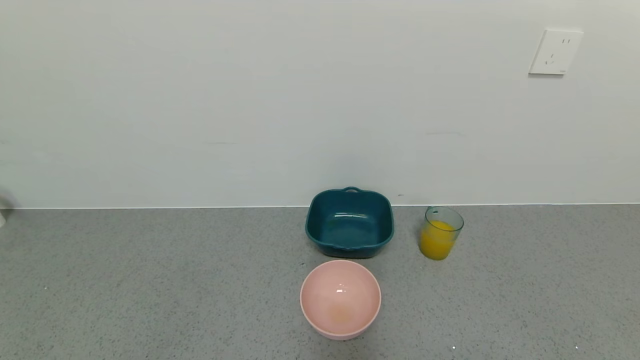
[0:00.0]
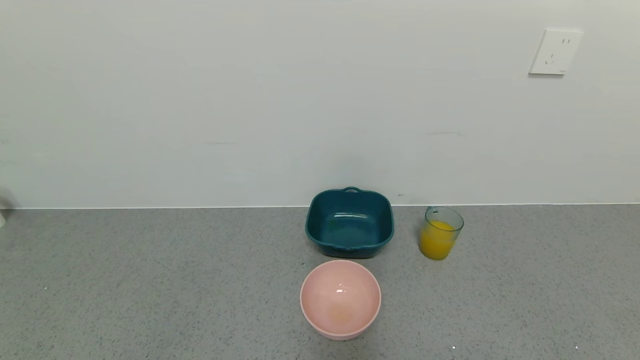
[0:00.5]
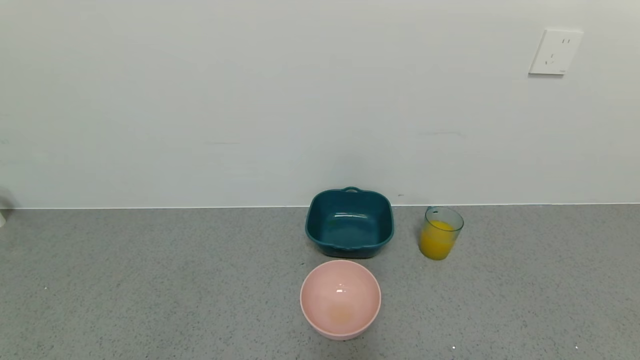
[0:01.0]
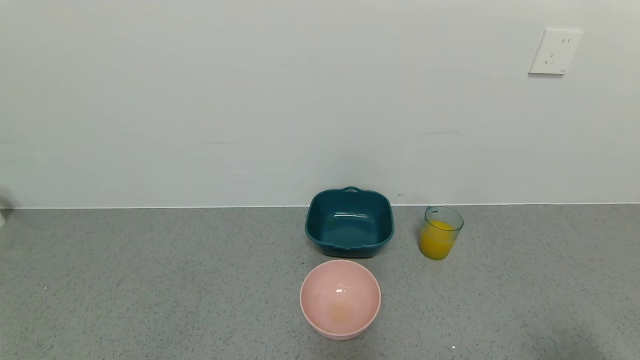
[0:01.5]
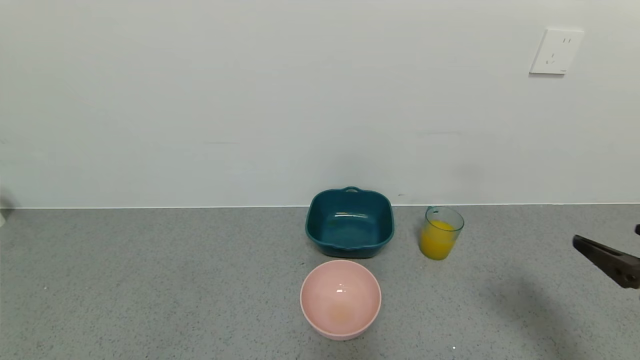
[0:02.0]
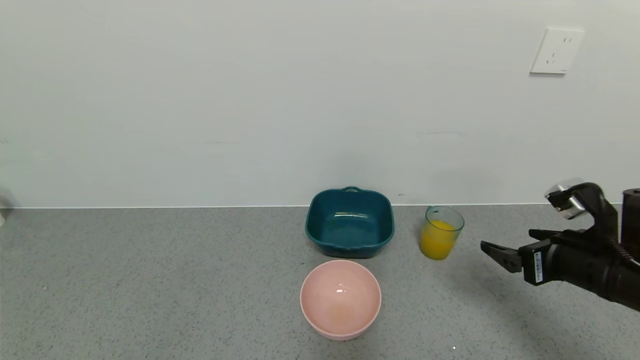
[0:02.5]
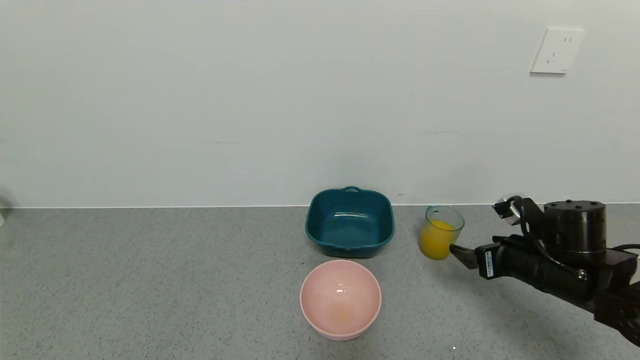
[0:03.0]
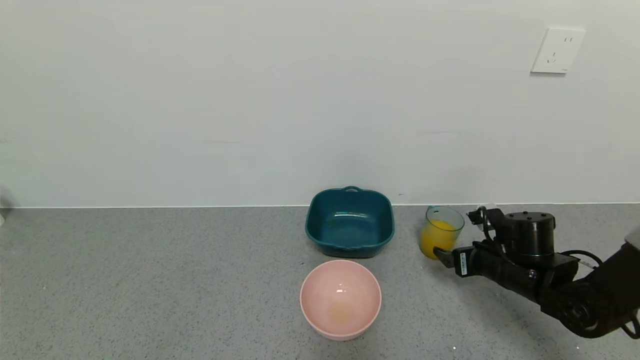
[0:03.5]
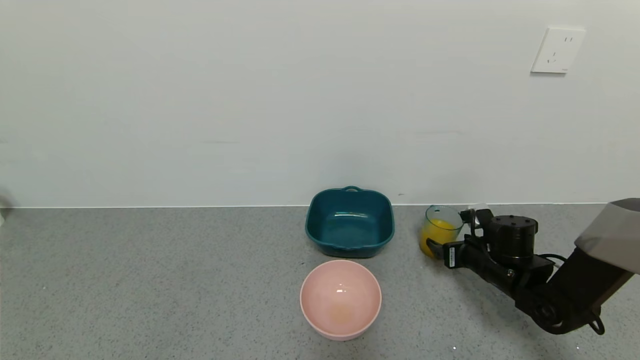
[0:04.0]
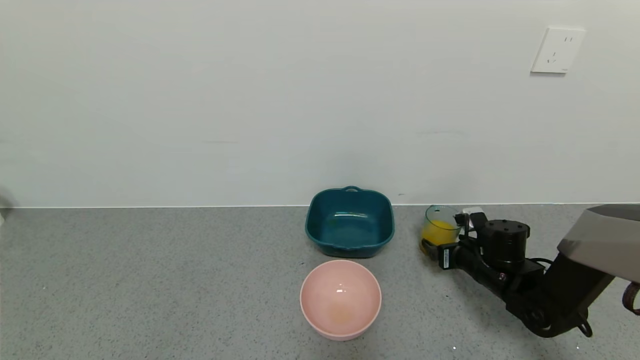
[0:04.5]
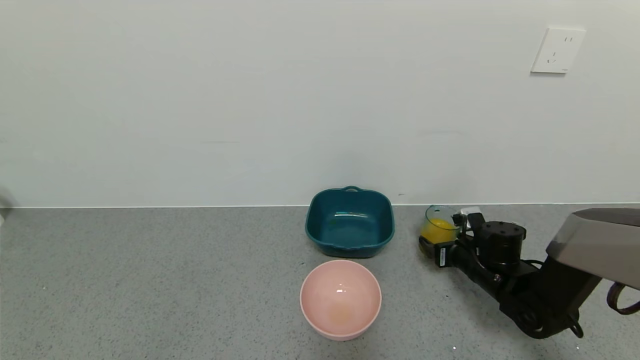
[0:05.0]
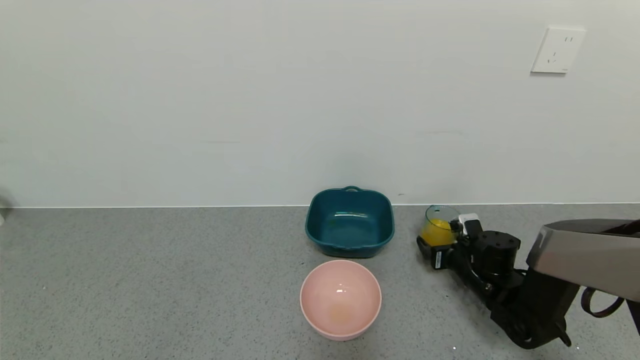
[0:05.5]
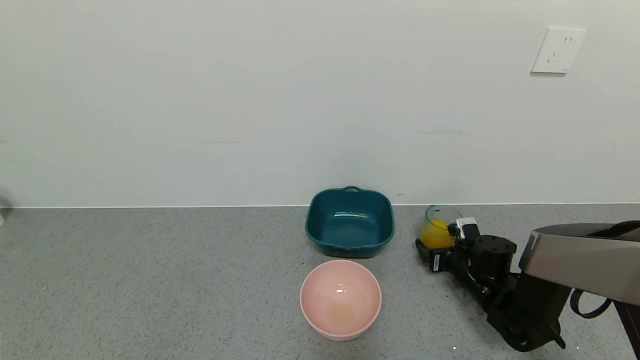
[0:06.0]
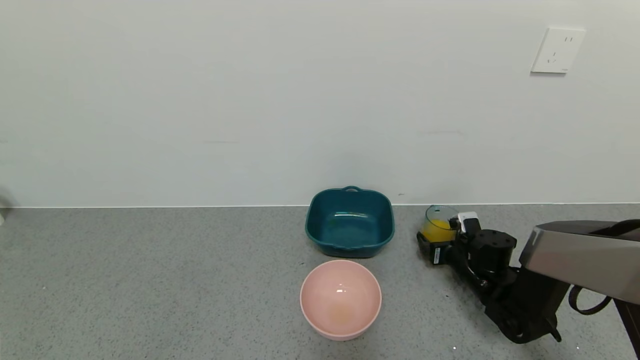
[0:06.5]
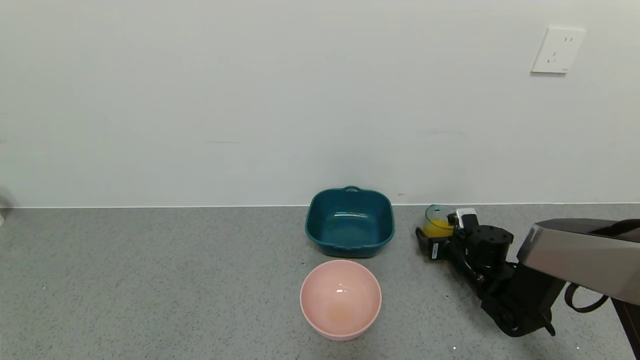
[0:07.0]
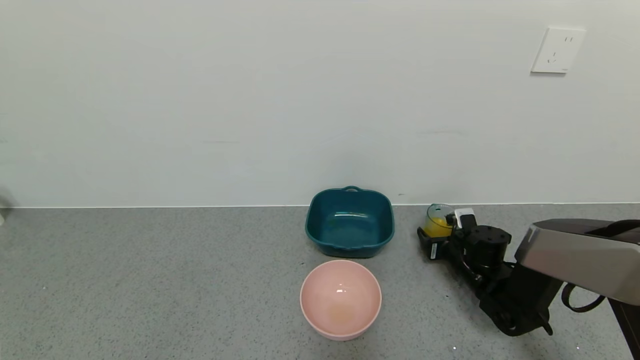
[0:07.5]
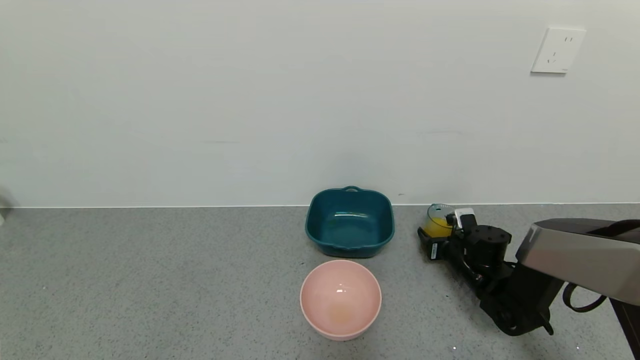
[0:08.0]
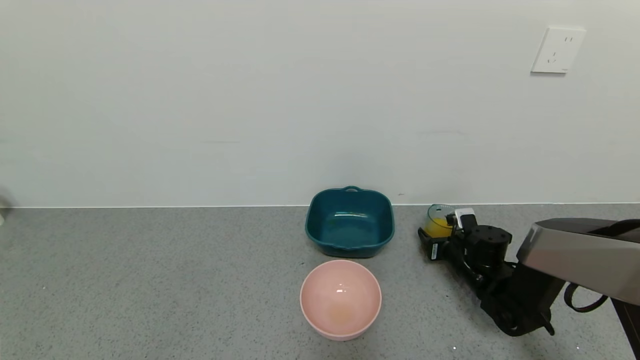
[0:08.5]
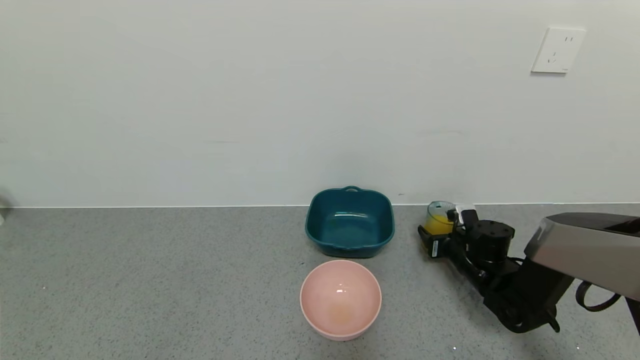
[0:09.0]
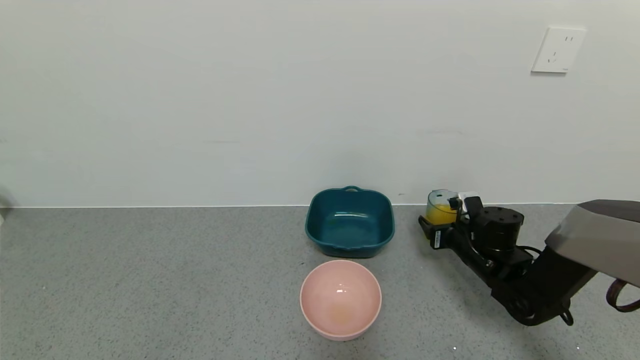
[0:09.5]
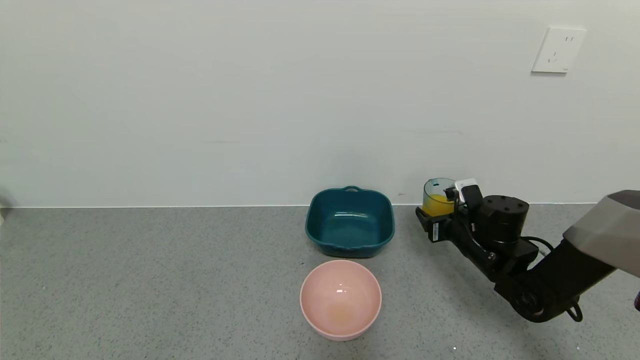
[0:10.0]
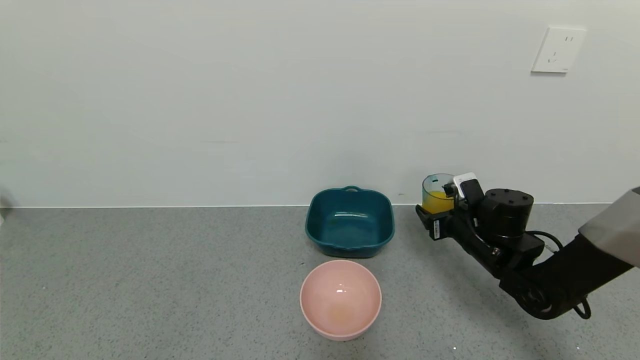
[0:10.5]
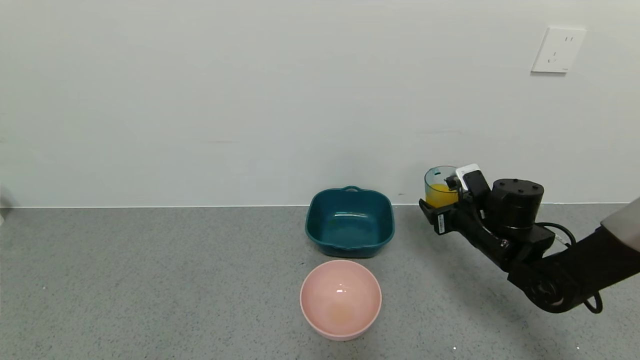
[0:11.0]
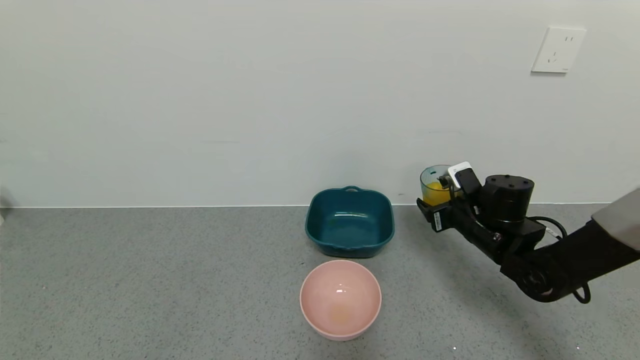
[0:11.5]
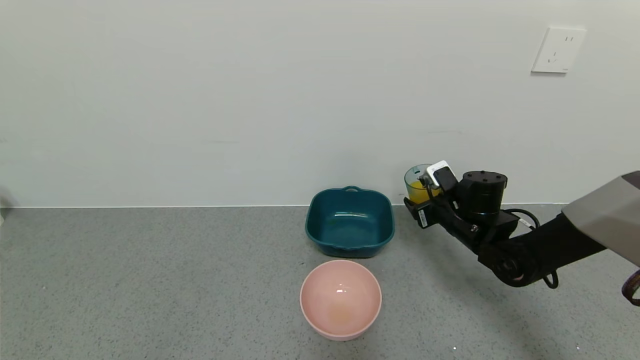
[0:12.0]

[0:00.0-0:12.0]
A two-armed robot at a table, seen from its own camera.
Task of the whole recording: use a gripper to pick up the cup and pour the liquid into a bowl or tray.
Step, 0.0 to 5.0 s: Pick up blue cup filled with orange juice with right gripper.
0.0 to 2.0 s: The right gripper shifts about 20 cm forward and upward.
2.0 to 4.0 s: The right gripper is displaced forward and downward by approximately 30 cm.
4.0 to 6.0 s: The right gripper changes place by approximately 5 cm.
6.0 to 8.0 s: The right gripper closes.
8.0 to 10.0 s: The right gripper travels upward by approximately 10 cm.
10.0 to 12.0 s: The grippers make only small movements.

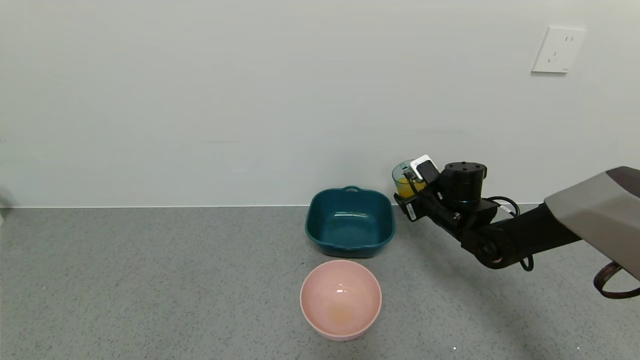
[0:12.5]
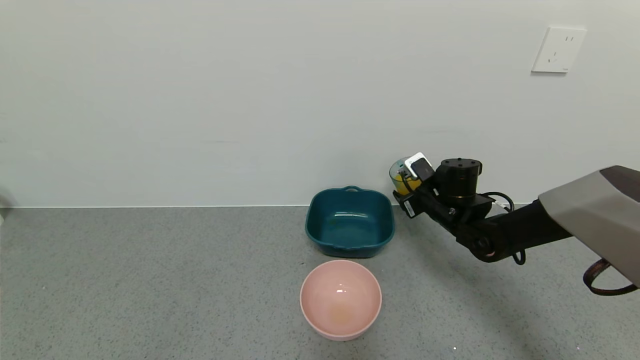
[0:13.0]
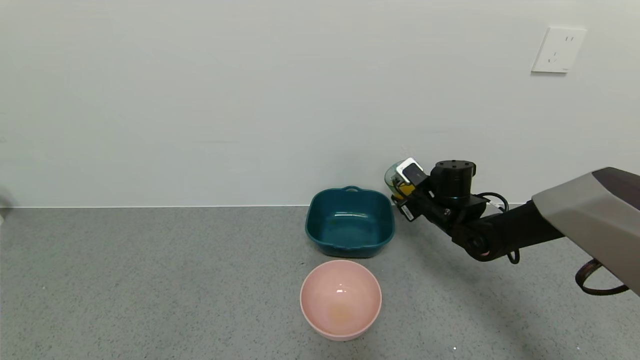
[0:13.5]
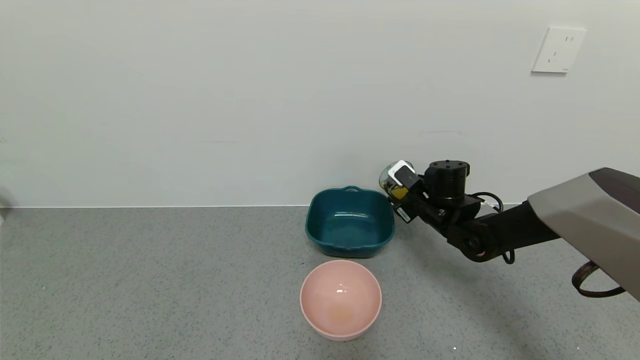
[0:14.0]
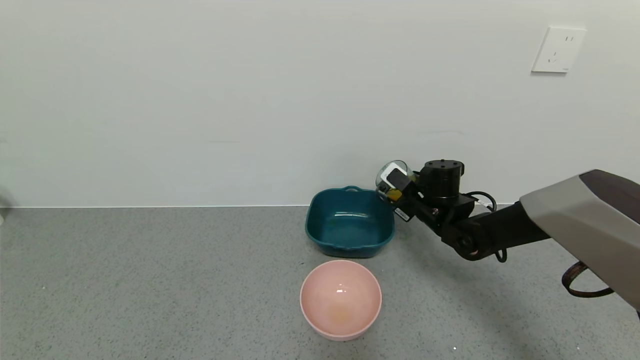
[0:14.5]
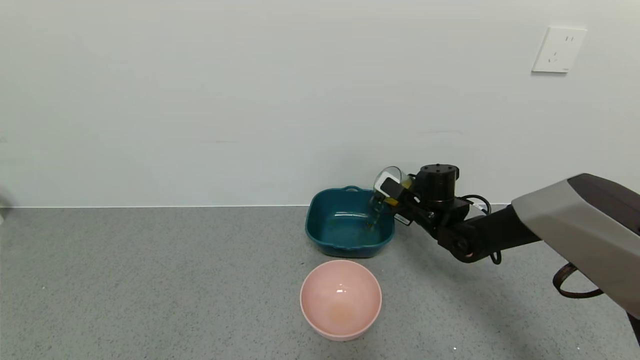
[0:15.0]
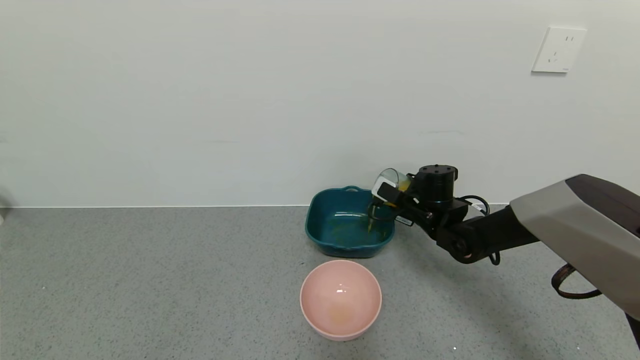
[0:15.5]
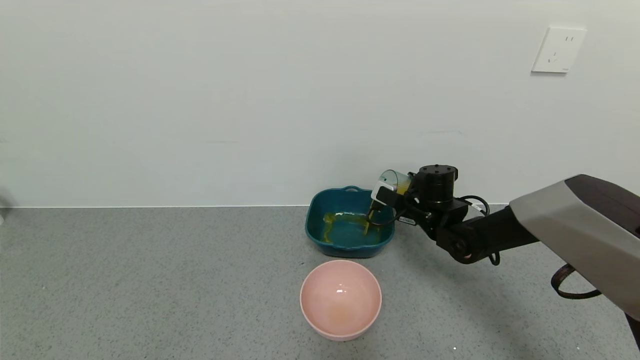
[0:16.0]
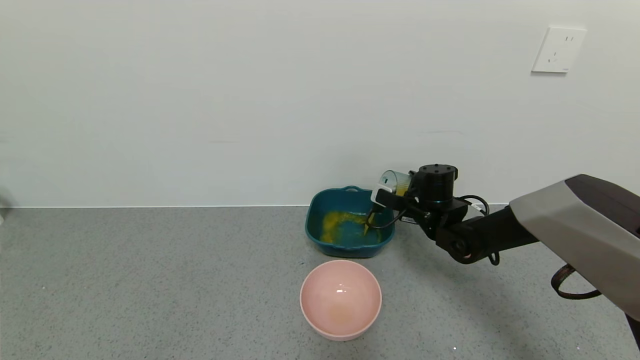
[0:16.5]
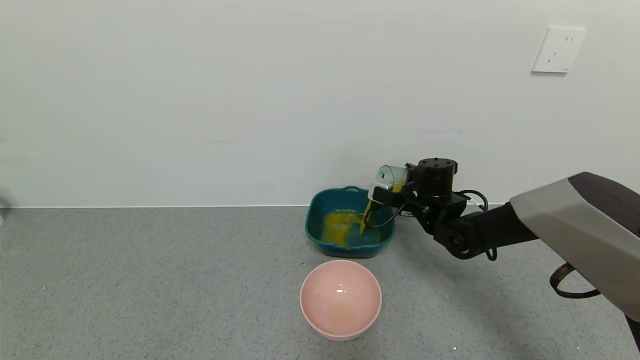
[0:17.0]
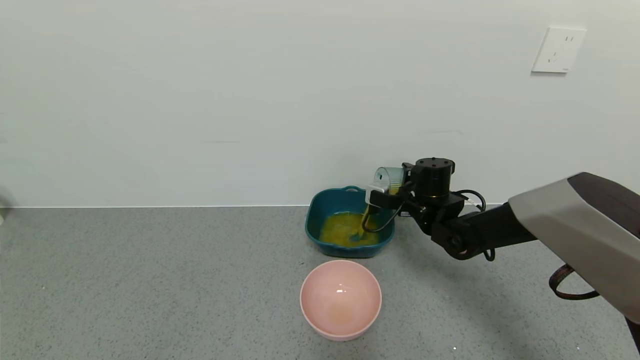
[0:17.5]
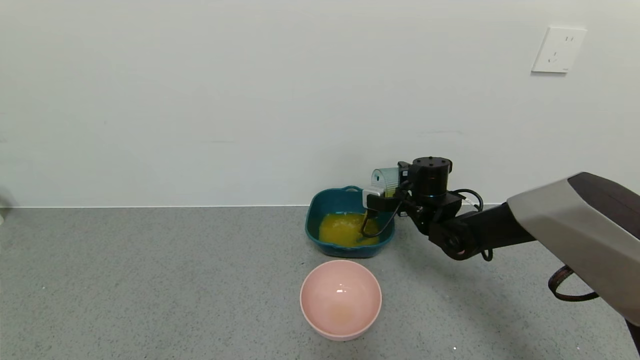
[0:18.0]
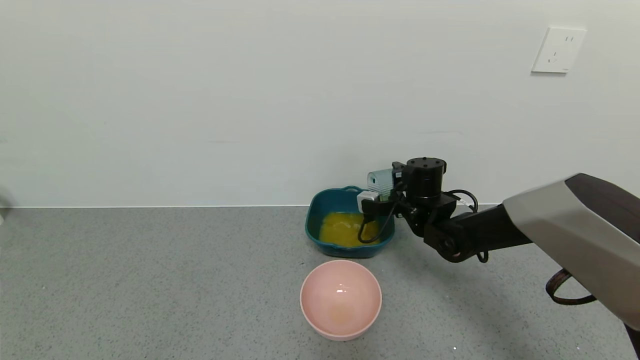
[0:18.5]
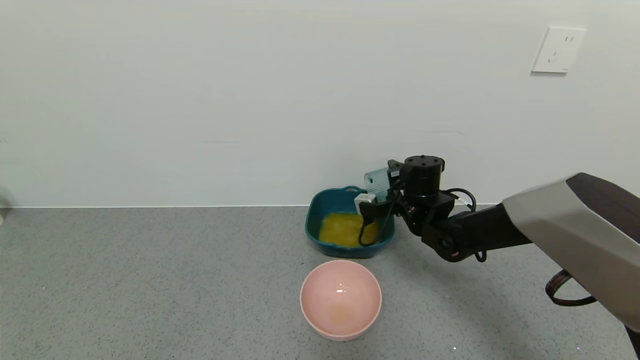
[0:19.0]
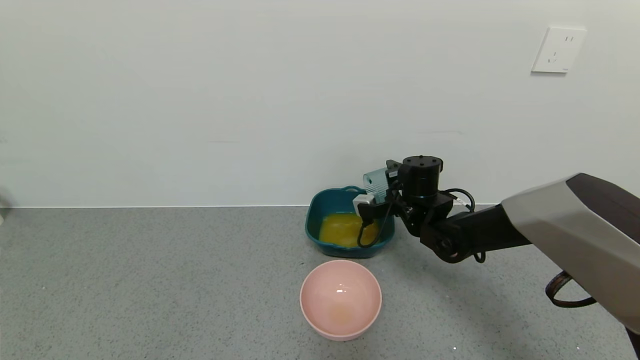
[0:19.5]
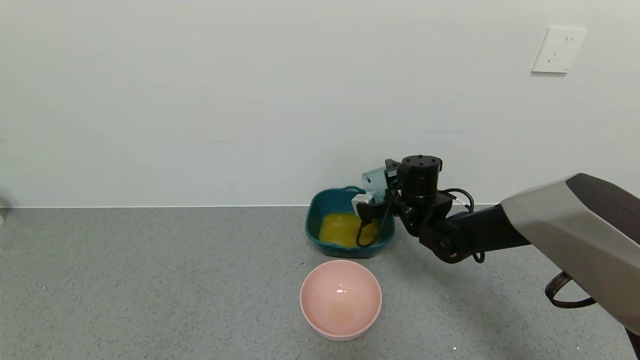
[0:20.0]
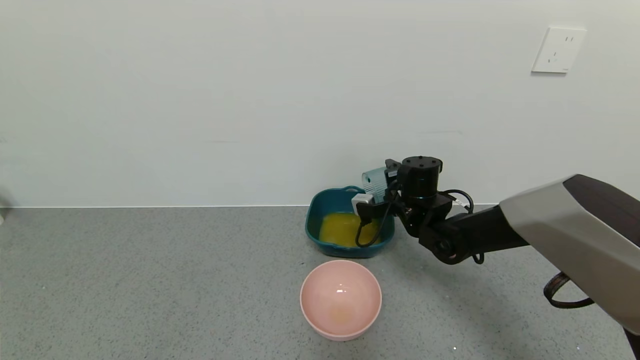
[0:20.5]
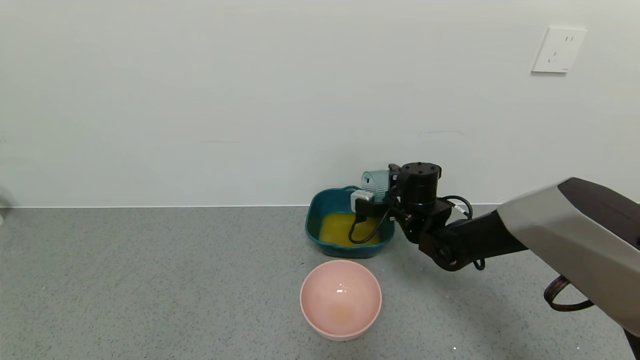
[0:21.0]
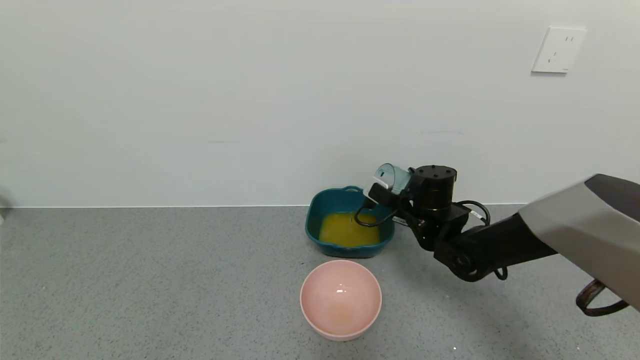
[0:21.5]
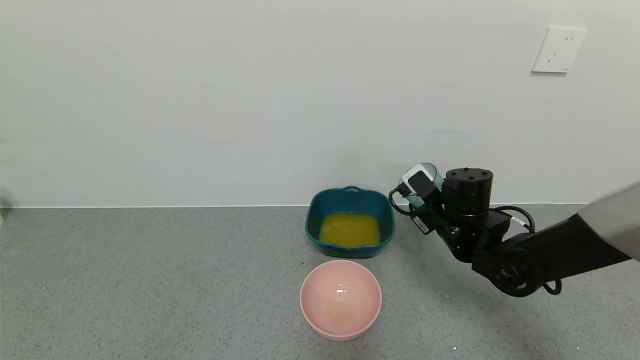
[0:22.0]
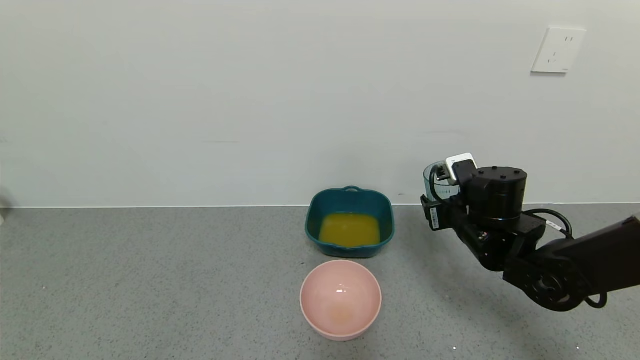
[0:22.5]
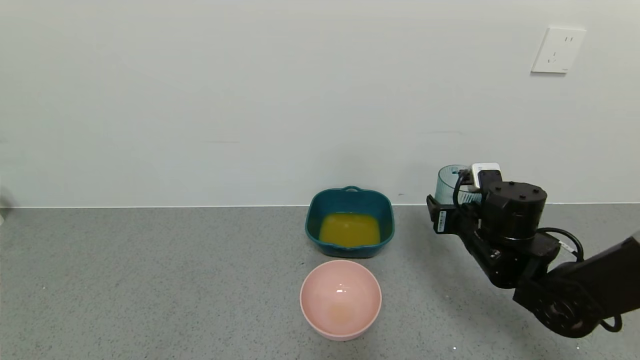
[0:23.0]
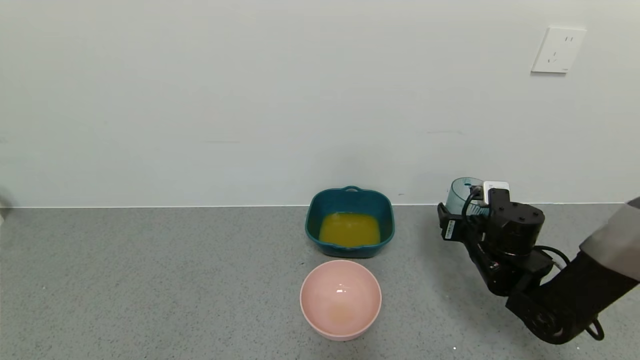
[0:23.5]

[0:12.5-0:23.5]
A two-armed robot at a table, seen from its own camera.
Task of the whole recording: use a gripper to pick up the cup and pour the liquid into a bowl or tray.
Step, 12.5 to 18.0 s: Pour the orange juice into the blue basin with right gripper.
18.0 to 20.0 s: The grippers stay close to where they were, moving slightly.
21.5 to 23.5 s: The right gripper moves to the right and backward, some 10 cm.
